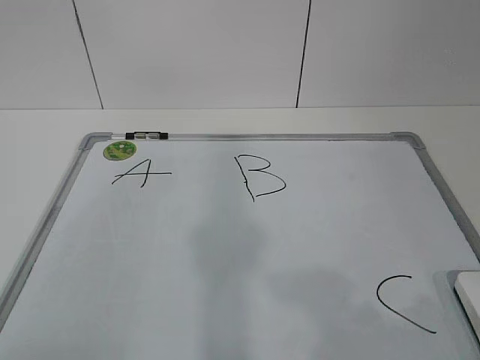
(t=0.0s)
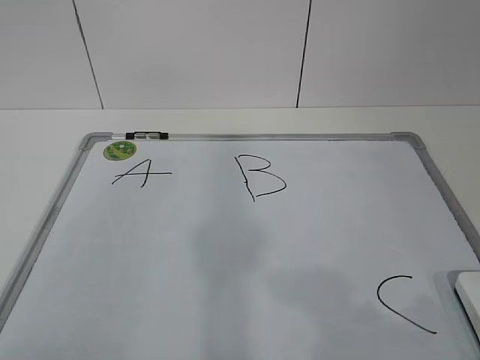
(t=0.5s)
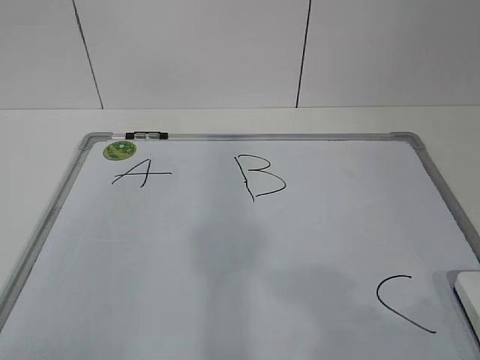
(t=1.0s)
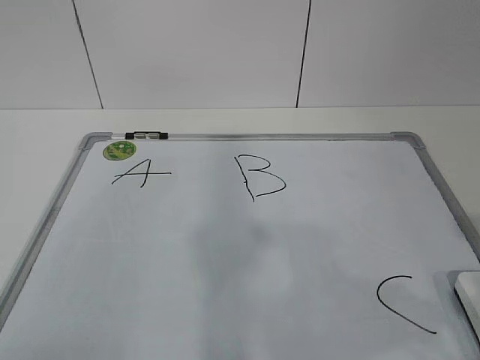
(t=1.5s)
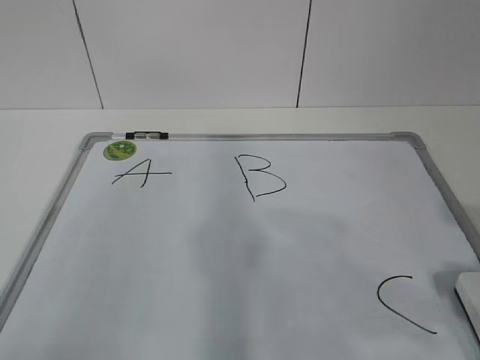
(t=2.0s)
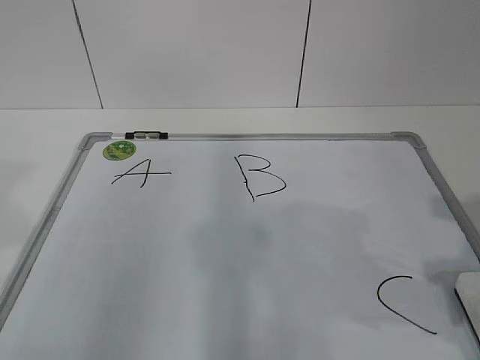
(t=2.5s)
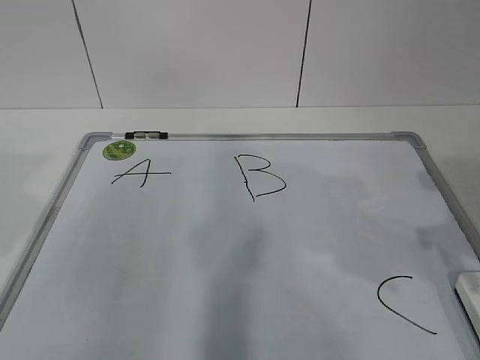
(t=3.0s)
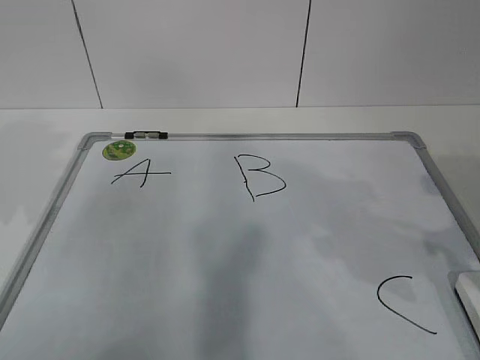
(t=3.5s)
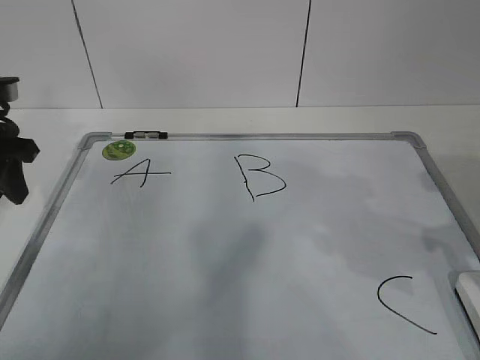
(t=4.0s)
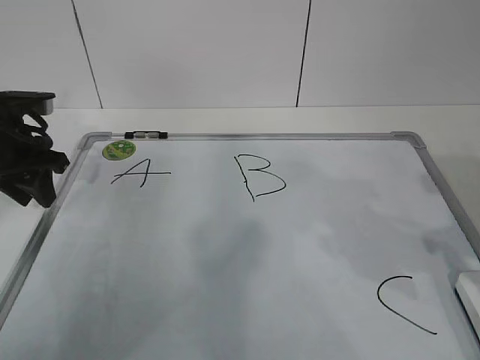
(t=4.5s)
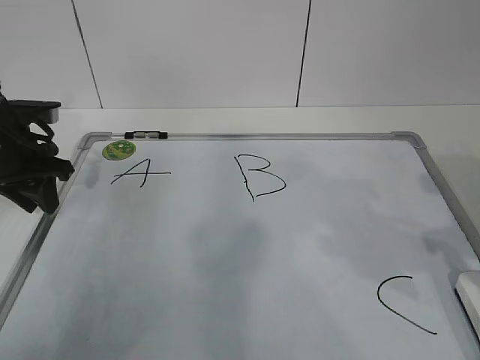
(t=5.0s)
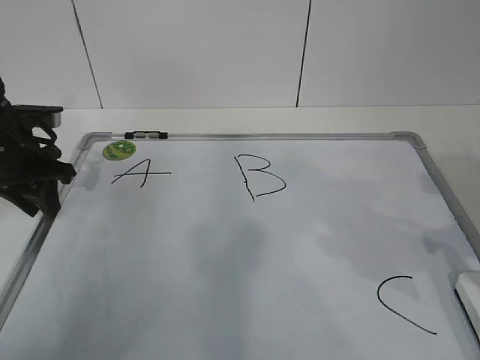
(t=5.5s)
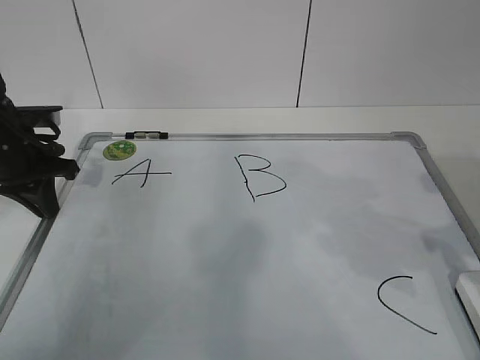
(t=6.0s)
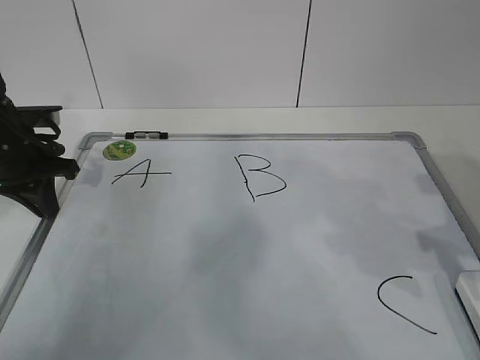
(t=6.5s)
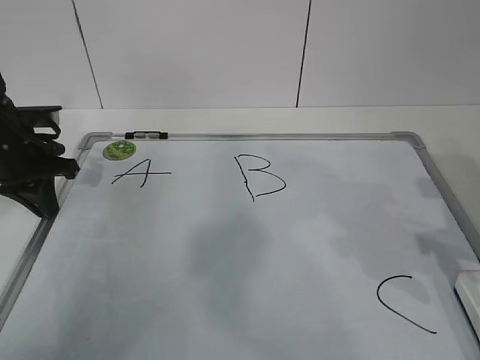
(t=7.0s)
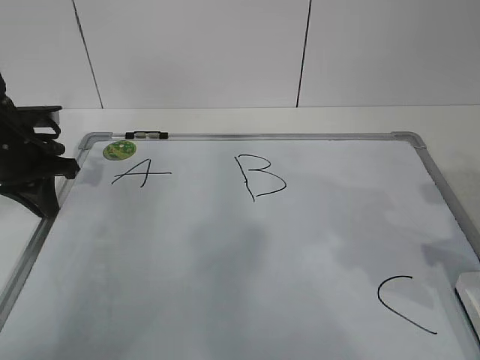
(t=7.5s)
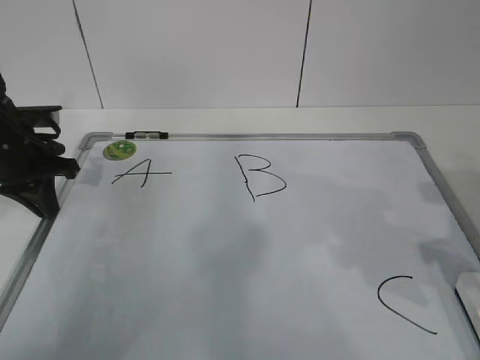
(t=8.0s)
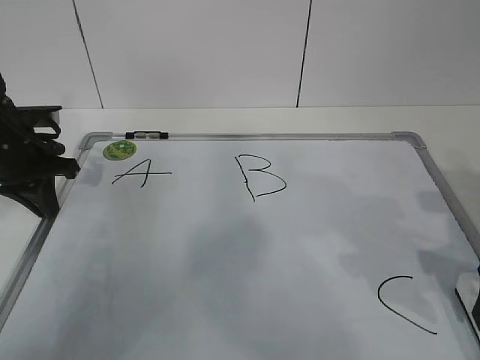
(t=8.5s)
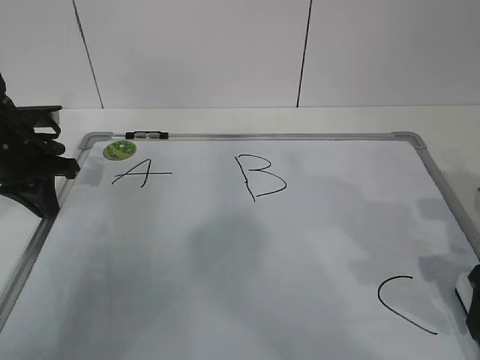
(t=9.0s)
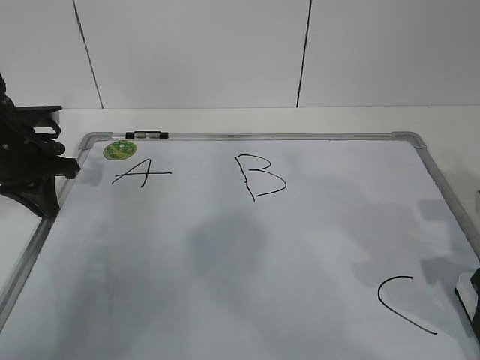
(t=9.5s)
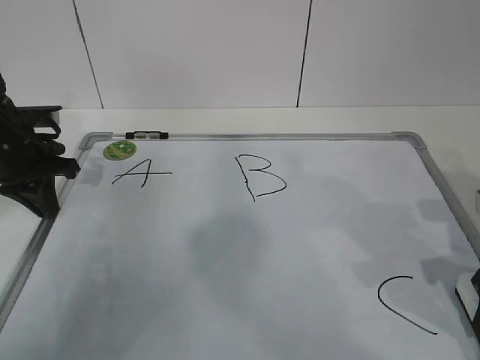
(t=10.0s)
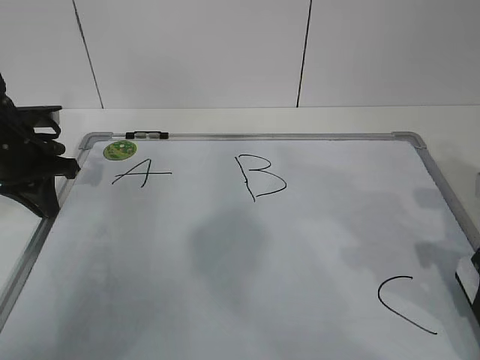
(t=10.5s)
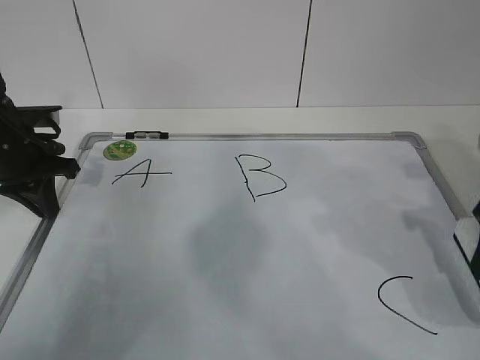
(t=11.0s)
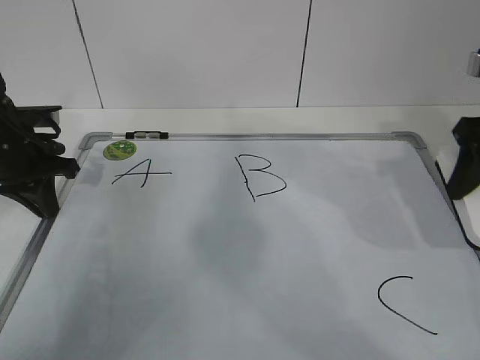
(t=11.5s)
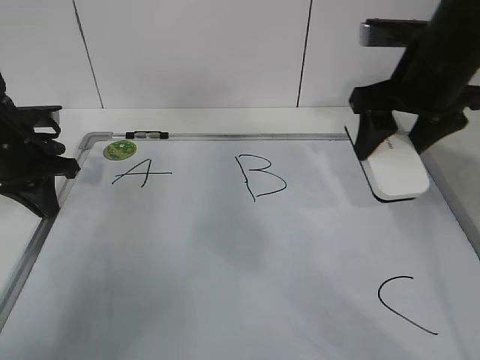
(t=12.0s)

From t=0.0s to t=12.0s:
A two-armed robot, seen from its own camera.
Task of the whole recording: pick up the eraser on the blackboard and erase the letter "B".
Step, from t=0.0s to t=4.5s: Hold the drawing board steady with your left hand.
Step, from t=5.0s to t=8.0s: Grab the eraser with your right hand.
From t=2.0s to t=4.0s: The right gripper is displaced forward by about 10 cm. The left gripper travels forward by approximately 30 cm.
From t=4.0s to t=6.0s: The left gripper is displaced downward by about 5 cm, and closes its fingers.
From t=8.0s to t=10.0s: The right gripper opens and closes again.
From t=10.0s to t=12.0s: The right gripper goes some 20 cm forward, upward and to the left.

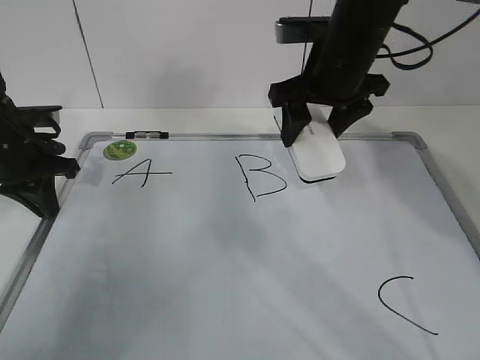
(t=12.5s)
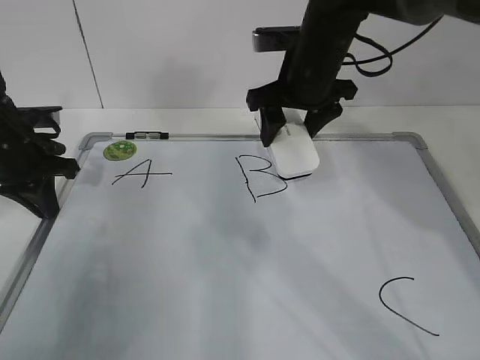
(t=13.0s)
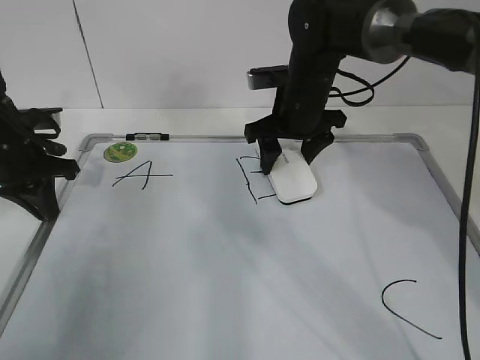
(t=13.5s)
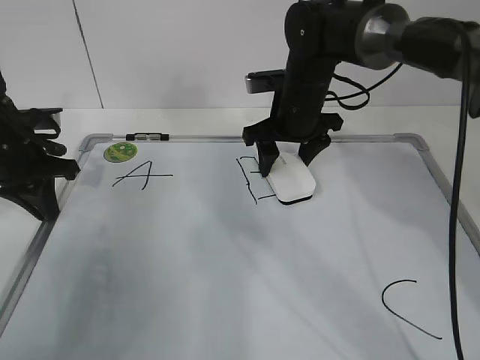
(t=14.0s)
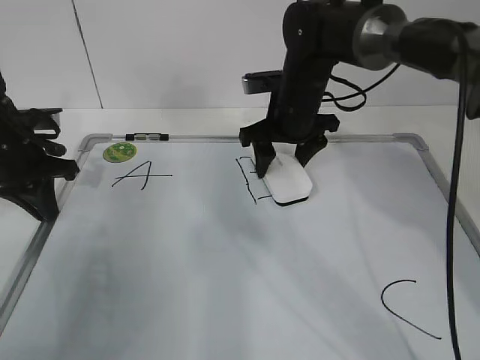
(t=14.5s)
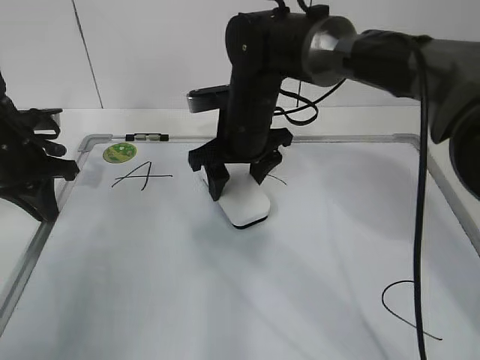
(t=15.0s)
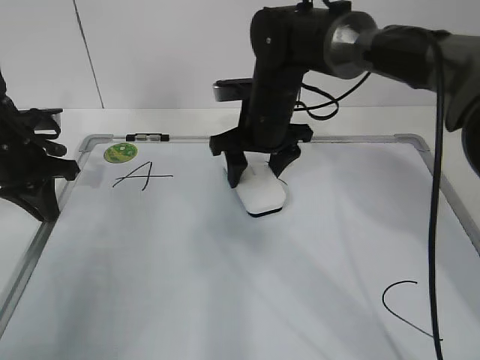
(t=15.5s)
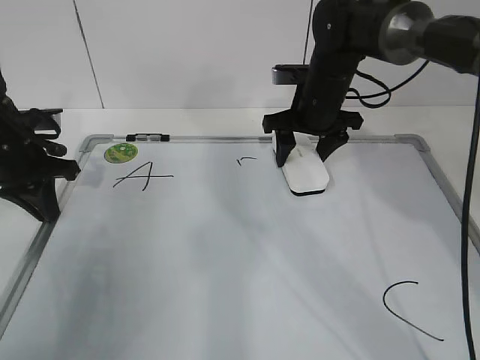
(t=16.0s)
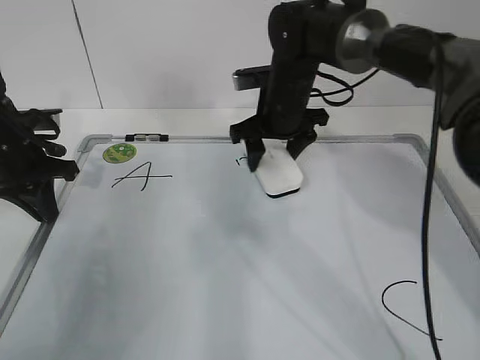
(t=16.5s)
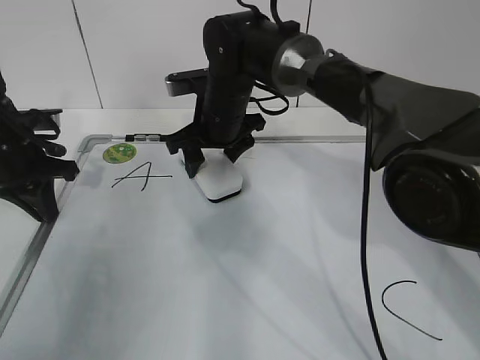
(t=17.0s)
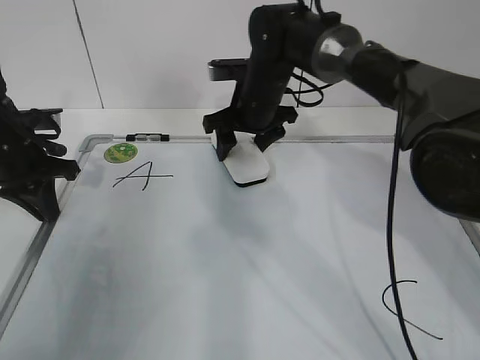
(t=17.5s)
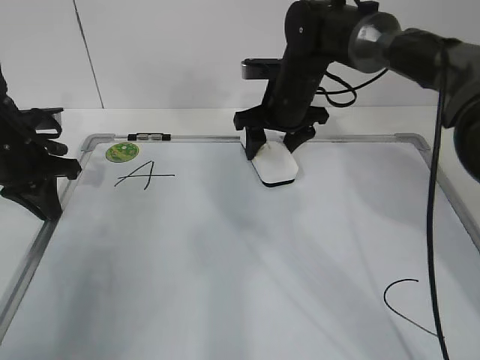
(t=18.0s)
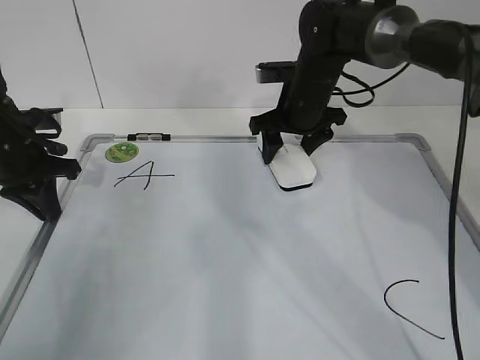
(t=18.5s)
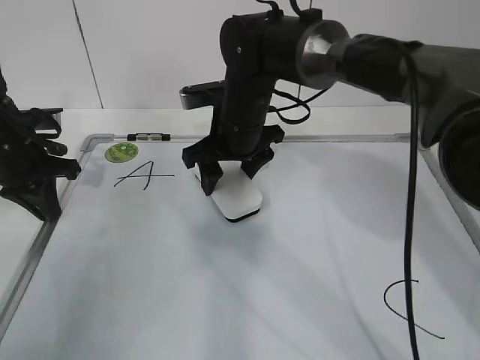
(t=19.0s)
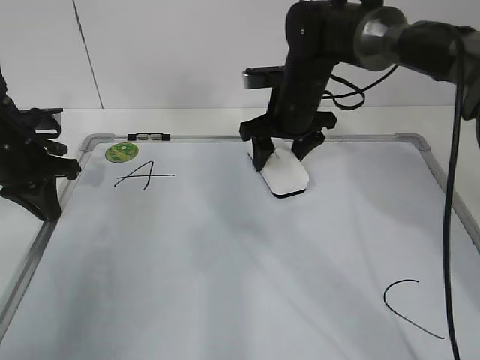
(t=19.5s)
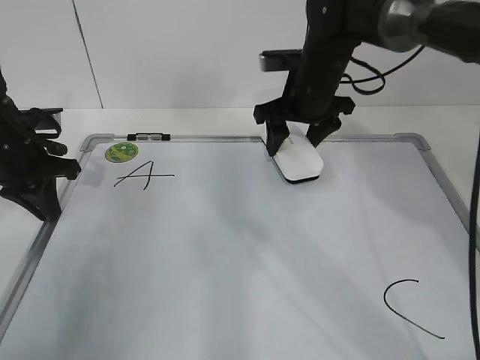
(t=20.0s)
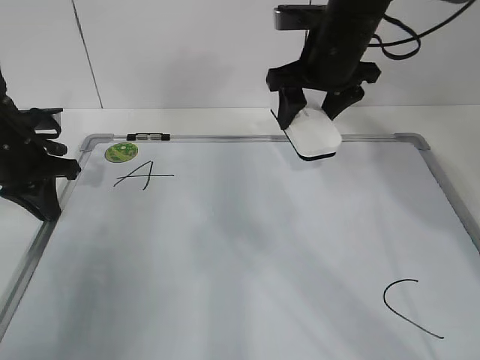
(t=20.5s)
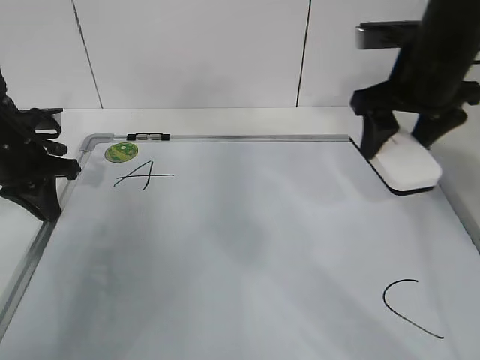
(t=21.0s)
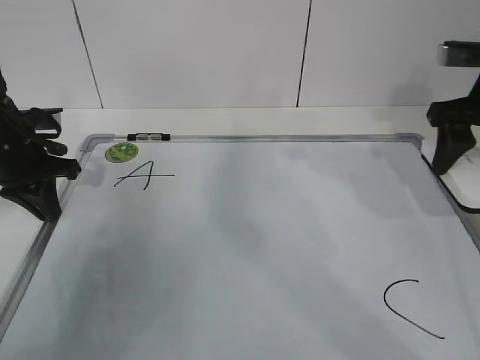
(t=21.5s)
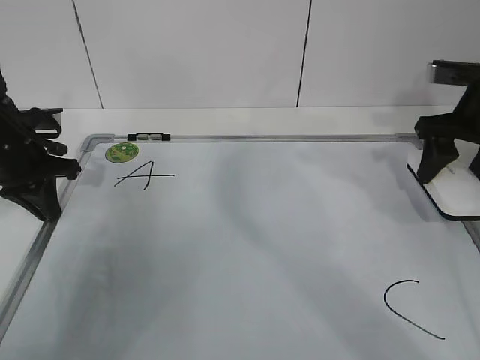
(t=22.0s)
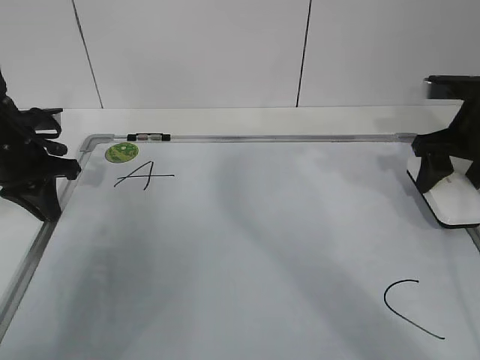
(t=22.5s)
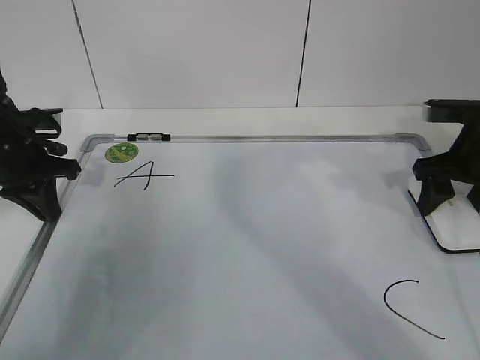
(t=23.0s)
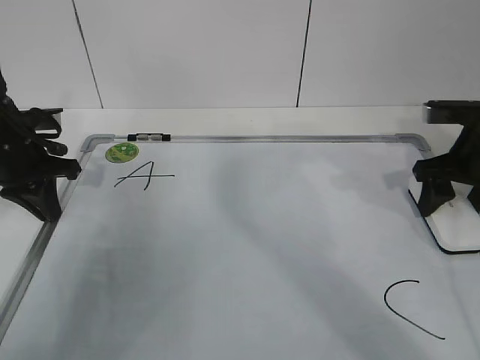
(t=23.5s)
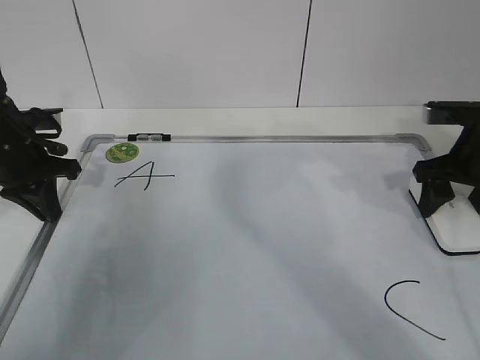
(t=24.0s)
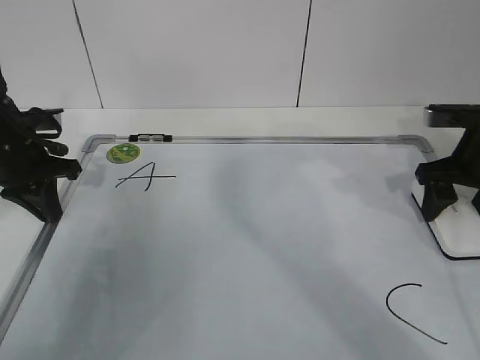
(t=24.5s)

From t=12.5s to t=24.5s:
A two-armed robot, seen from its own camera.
Task of the whole recording: pick up the eraser on the blackboard and erase the letter "B".
Step, from t=12.5s to t=16.0s: Erase the letter B with your right hand.
Step, from t=17.0s to t=20.5s: Put down the eraser with your right hand.
From t=12.5s to t=14.5s: The right gripper shifts roughly 10 cm downward and forward.
From t=14.5s to t=16.5s: The right gripper moves left and right over about 10 cm, changing direction 2 times.
From t=16.5s to t=18.5s: The right gripper goes to the left and returns, approximately 10 cm each way.
From t=18.5s to t=20.5s: The right gripper moves upward, approximately 10 cm, and travels to the left and back again, roughly 10 cm each way.
From t=20.5s to t=22.5s: The right gripper is displaced to the right by some 15 cm.
From t=22.5s to t=24.5s: The grippers stay close to where they were, moving slightly.

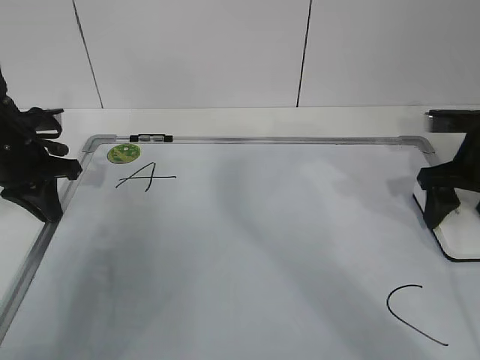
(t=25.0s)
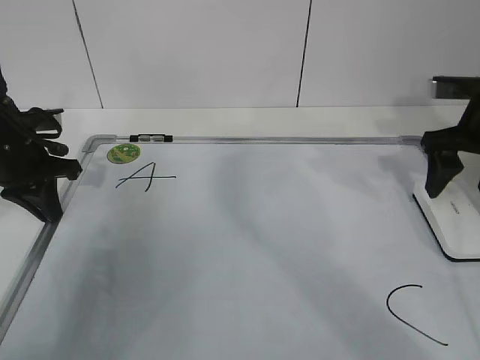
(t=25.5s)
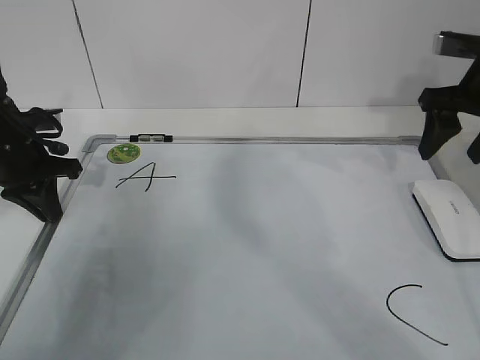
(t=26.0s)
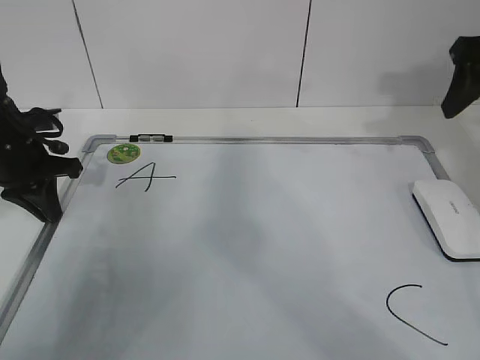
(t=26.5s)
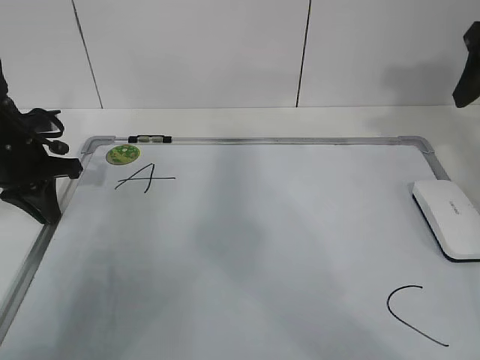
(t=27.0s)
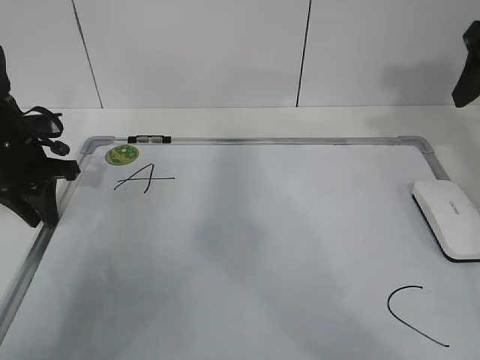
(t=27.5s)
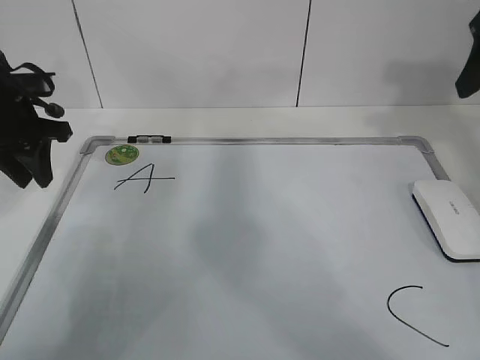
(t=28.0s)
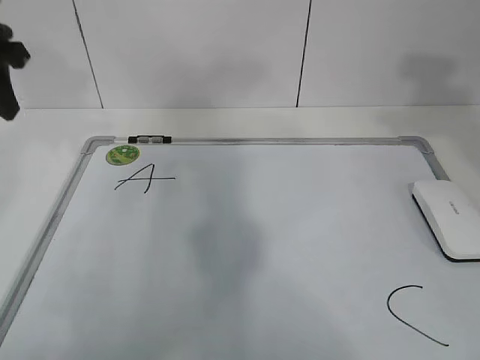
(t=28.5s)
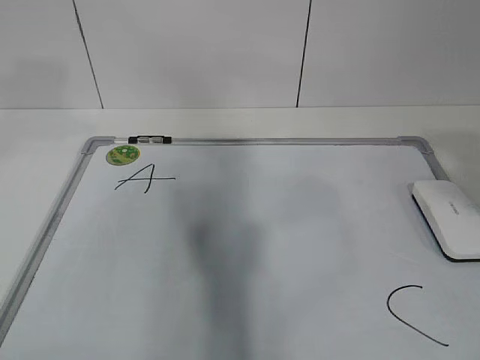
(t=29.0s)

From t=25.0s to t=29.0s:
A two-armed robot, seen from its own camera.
Task of the whole recording: pick up the eraser on the blackboard and erase the letter "B".
From t=25.0s to t=27.0s: The right gripper goes roughly 15 cm upward.
From t=27.0s to t=29.0s: The left gripper moves upward and backward, about 30 cm, and opens up. The right gripper moves backward, approximately 25 cm.
